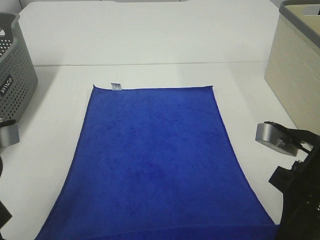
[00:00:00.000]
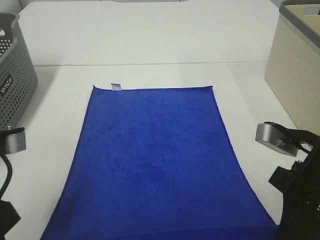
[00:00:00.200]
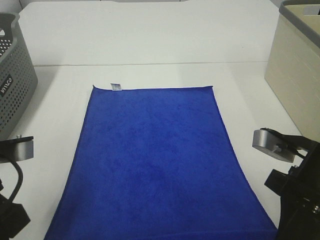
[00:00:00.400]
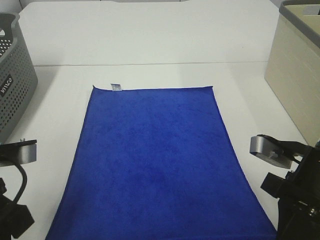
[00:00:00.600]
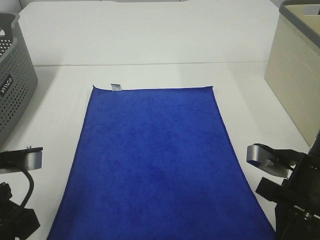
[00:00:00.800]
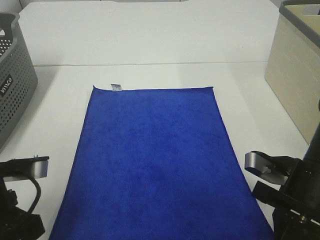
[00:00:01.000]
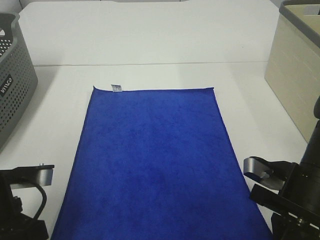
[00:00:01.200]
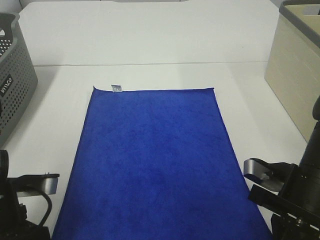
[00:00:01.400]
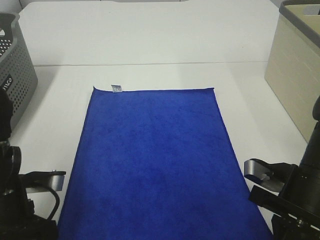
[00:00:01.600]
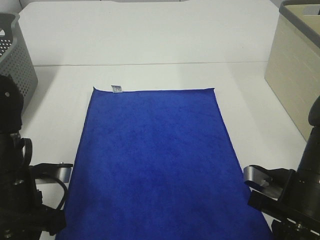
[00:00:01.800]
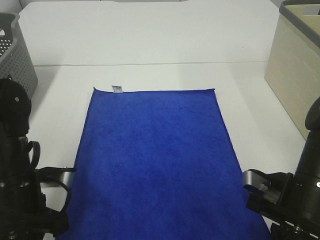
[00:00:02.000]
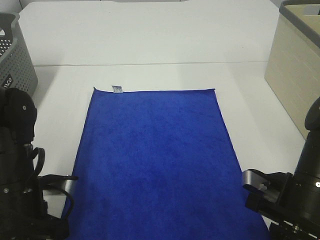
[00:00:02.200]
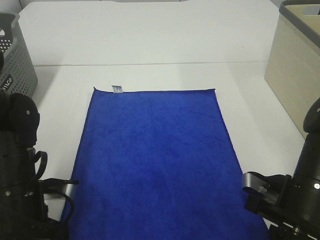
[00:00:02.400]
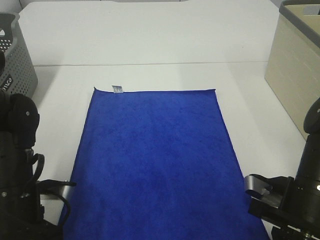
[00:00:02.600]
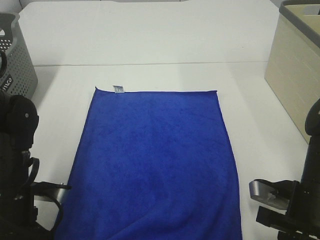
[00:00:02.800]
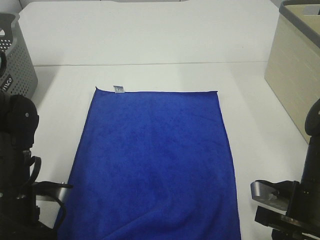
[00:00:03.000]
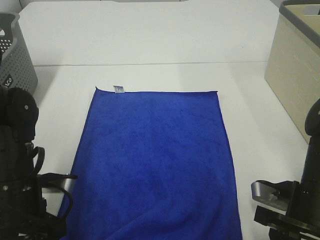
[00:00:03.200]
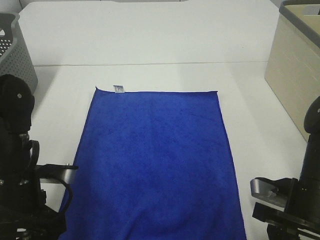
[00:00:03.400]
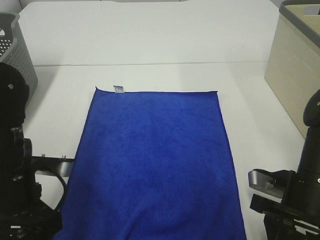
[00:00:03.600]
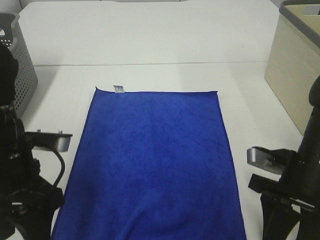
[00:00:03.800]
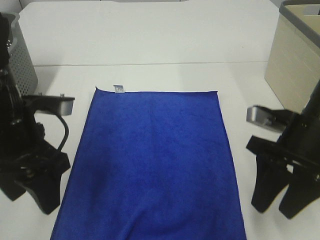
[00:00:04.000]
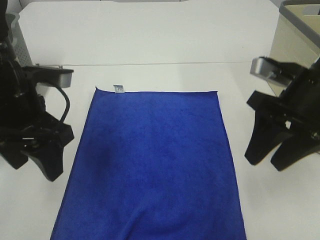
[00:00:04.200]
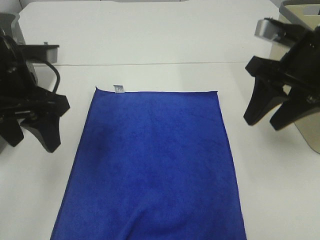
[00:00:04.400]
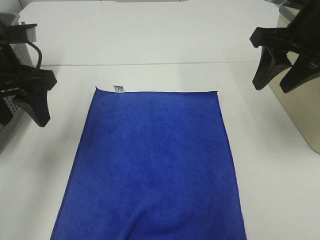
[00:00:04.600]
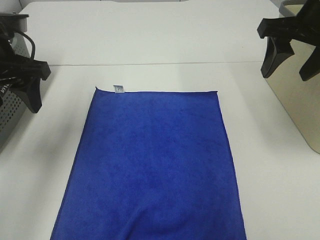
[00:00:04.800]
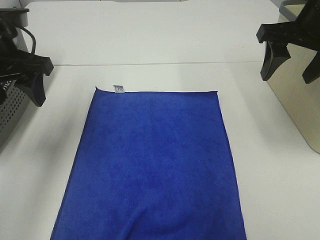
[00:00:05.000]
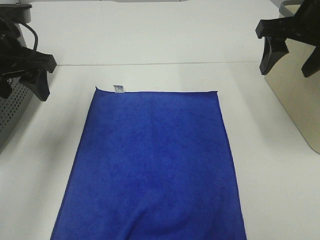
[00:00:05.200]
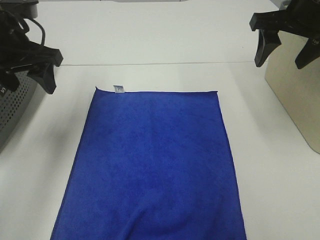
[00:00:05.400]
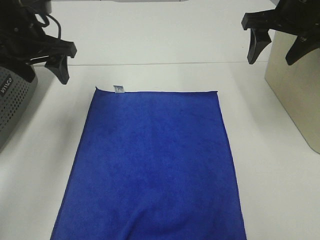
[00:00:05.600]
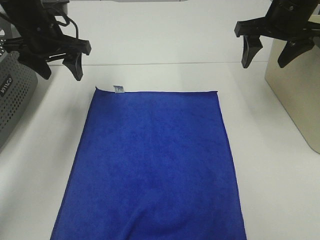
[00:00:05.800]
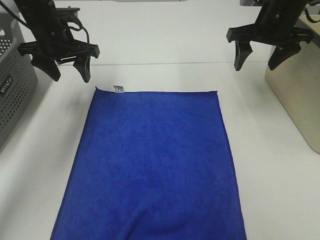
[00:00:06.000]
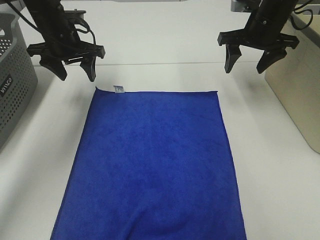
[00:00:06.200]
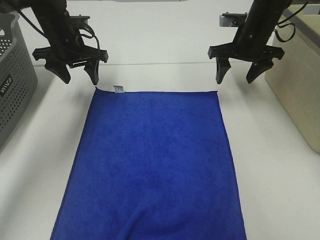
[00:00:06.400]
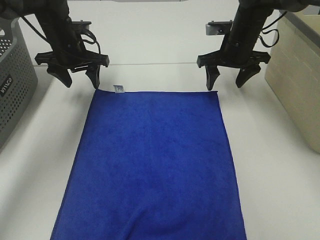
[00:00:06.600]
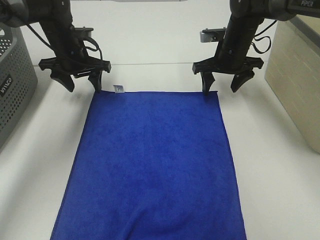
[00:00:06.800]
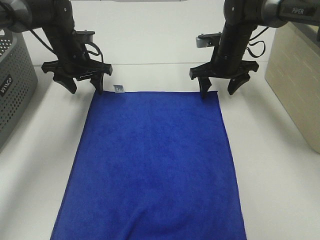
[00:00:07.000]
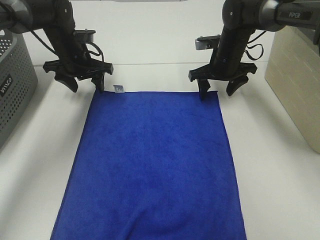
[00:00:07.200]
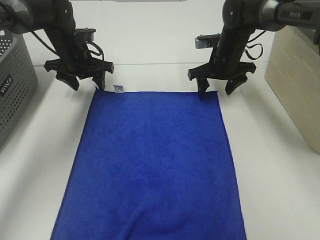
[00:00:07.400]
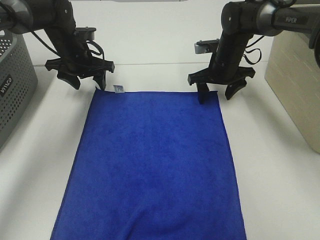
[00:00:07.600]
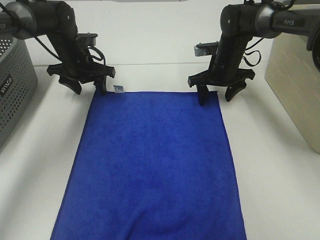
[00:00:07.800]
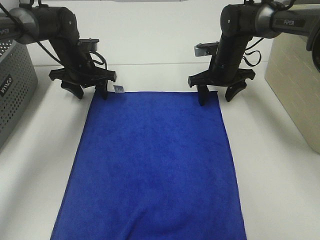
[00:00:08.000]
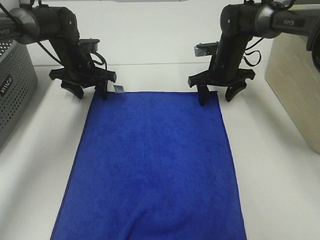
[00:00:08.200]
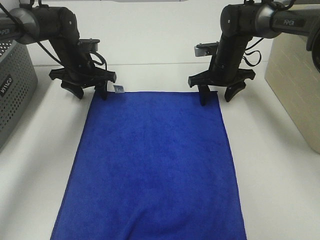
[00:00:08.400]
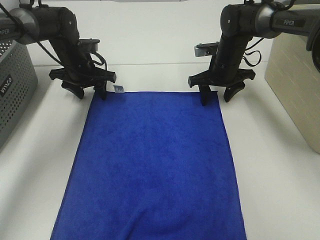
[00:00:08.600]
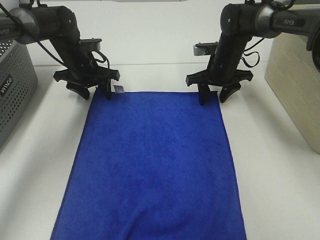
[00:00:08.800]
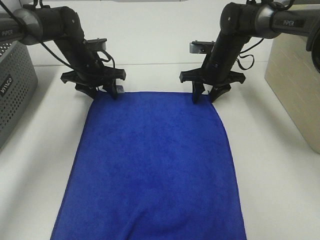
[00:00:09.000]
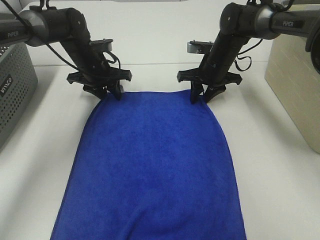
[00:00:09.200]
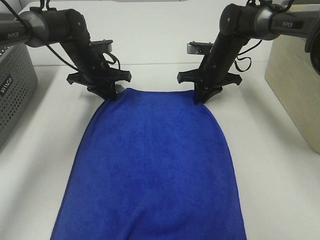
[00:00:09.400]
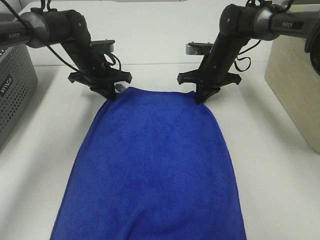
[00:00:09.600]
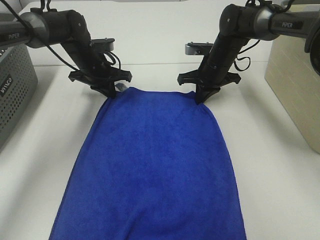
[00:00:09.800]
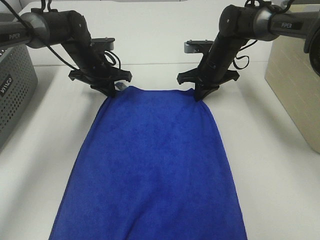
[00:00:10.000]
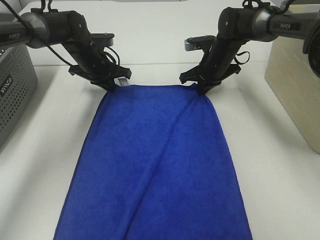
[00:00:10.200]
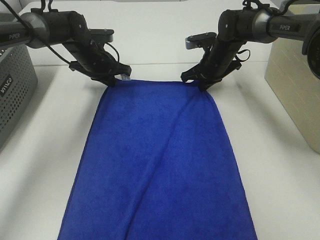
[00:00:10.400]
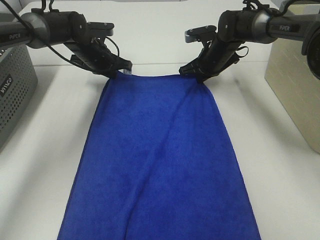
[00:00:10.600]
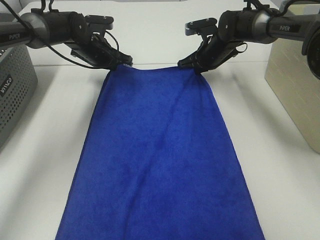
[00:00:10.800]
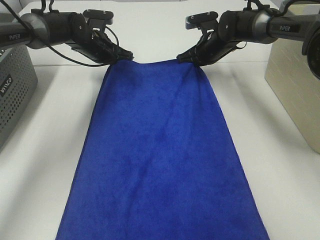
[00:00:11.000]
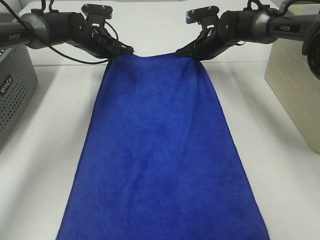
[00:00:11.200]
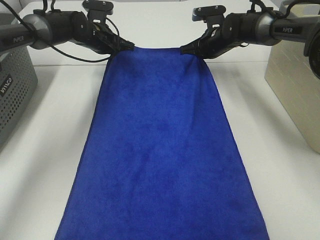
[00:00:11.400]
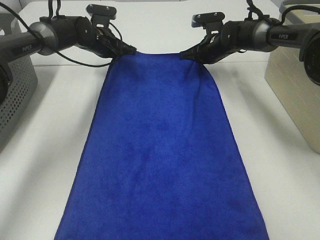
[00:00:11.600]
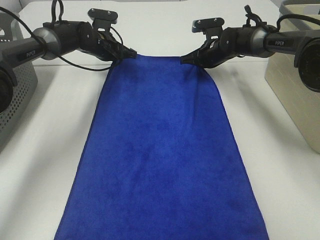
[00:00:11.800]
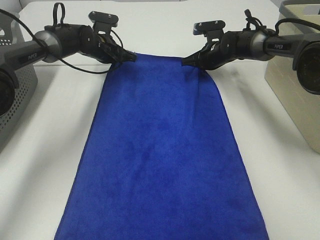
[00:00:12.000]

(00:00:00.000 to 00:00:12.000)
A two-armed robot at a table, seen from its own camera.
Task of the whole recording: Remove the towel and place it.
Step, 00:00:00.000 - 00:00:06.000: Left hand:adjust the blue towel.
Step, 00:00:00.000 - 00:00:06.000: Right hand:adjust the blue towel.
00:00:00.000 - 00:00:01.600: The left gripper moves downward, some 10 cm; the right gripper heads downward, covering approximately 5 cm.
00:00:01.600 - 00:00:03.000: The left gripper opens its fingers, while the right gripper opens up.
00:00:03.000 - 00:00:04.400: The grippers both shift upward and forward by approximately 20 cm.
00:00:04.400 - 00:00:06.000: The two grippers go roughly 20 cm forward.
00:00:06.000 - 00:00:07.600: The right gripper goes some 15 cm downward and to the left, while the left gripper moves downward, approximately 5 cm.
00:00:07.600 - 00:00:09.000: The grippers make only small movements.
00:00:09.000 - 00:00:10.400: The left gripper closes up; the right gripper closes.
00:00:10.400 - 00:00:12.000: The right gripper shifts by about 5 cm.

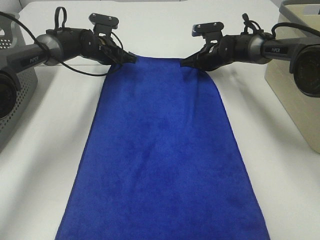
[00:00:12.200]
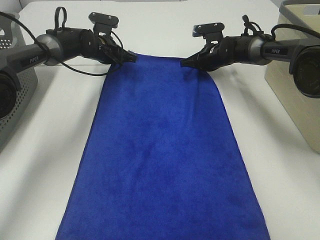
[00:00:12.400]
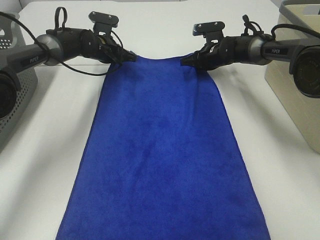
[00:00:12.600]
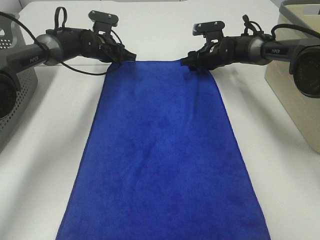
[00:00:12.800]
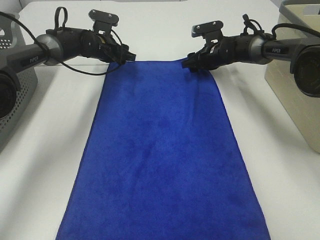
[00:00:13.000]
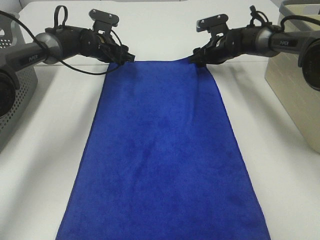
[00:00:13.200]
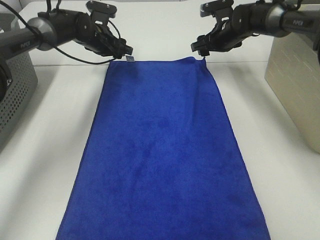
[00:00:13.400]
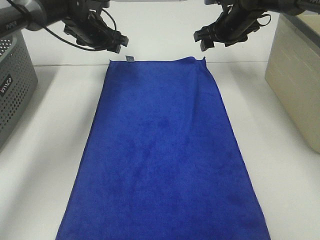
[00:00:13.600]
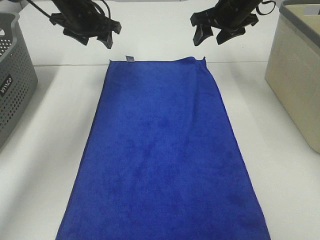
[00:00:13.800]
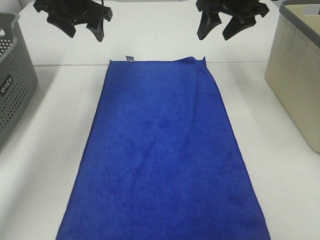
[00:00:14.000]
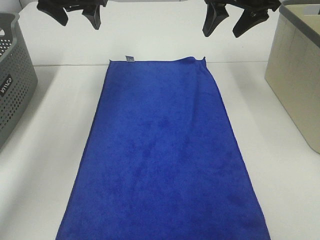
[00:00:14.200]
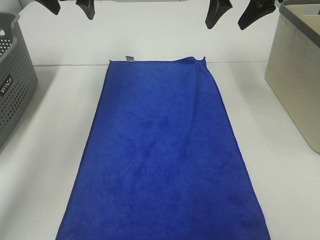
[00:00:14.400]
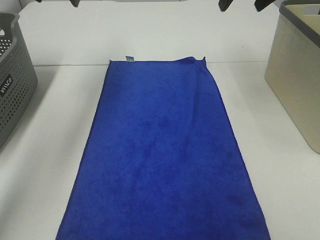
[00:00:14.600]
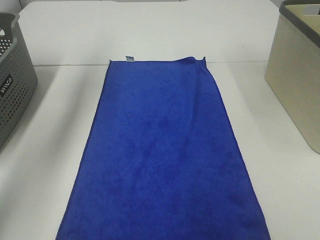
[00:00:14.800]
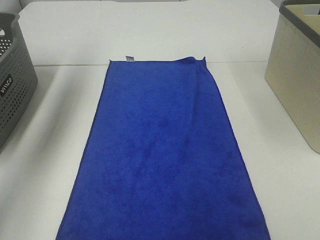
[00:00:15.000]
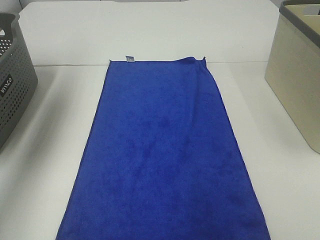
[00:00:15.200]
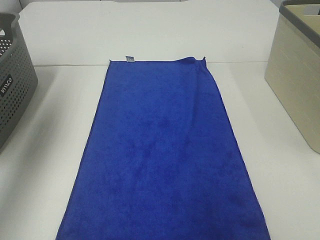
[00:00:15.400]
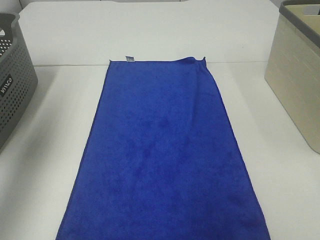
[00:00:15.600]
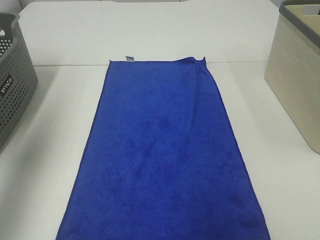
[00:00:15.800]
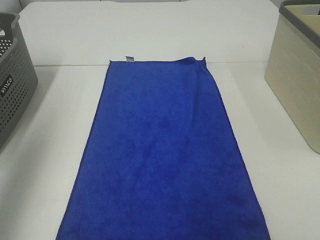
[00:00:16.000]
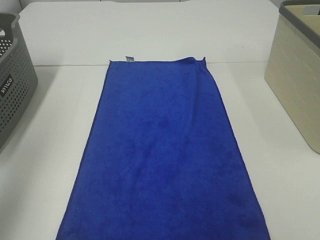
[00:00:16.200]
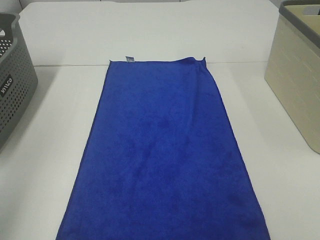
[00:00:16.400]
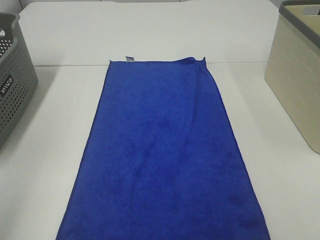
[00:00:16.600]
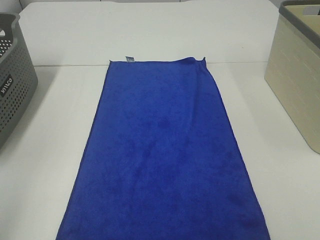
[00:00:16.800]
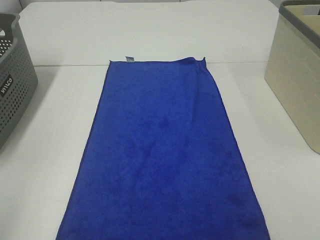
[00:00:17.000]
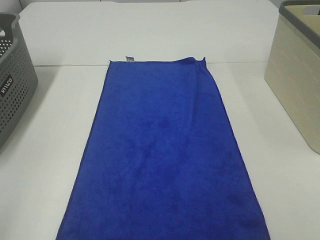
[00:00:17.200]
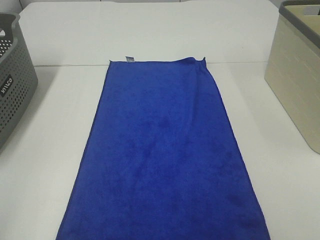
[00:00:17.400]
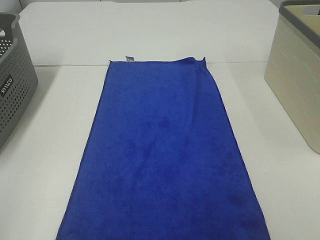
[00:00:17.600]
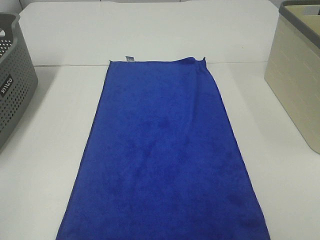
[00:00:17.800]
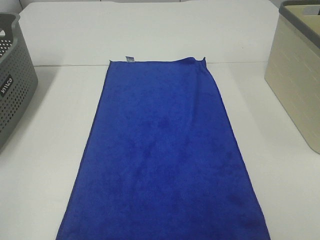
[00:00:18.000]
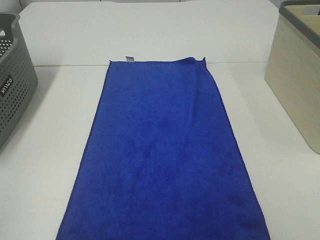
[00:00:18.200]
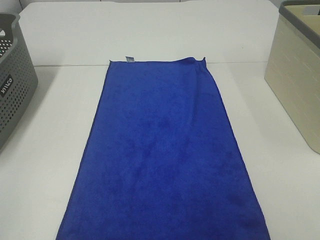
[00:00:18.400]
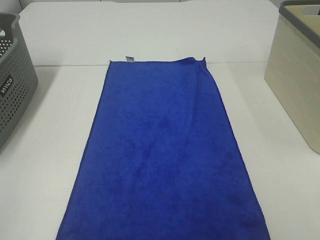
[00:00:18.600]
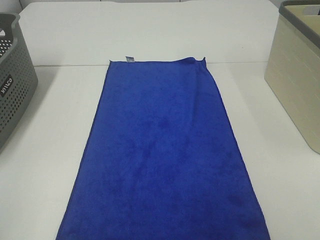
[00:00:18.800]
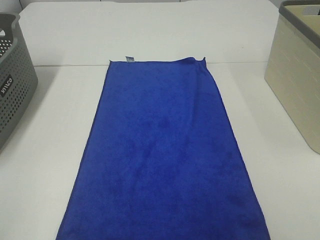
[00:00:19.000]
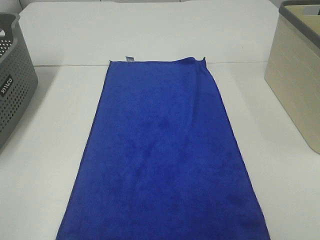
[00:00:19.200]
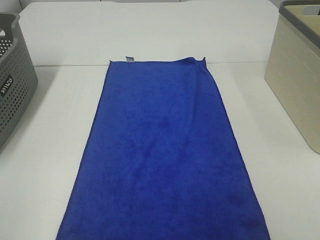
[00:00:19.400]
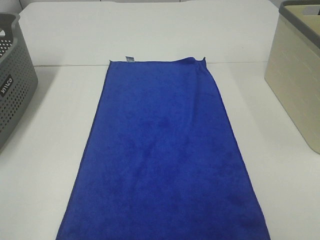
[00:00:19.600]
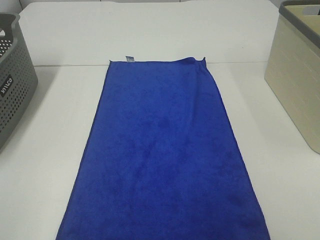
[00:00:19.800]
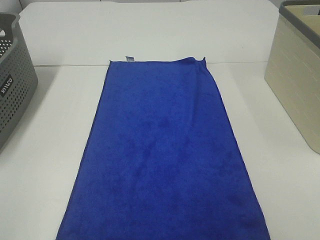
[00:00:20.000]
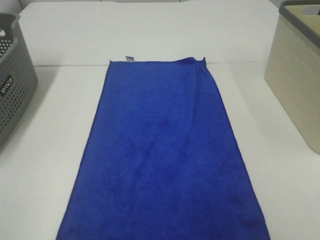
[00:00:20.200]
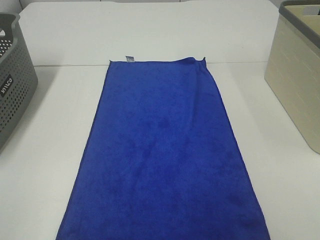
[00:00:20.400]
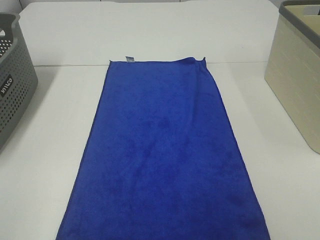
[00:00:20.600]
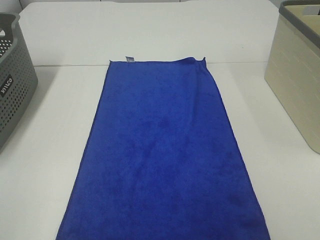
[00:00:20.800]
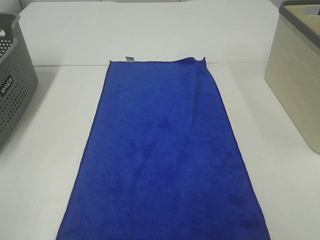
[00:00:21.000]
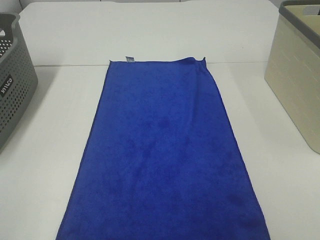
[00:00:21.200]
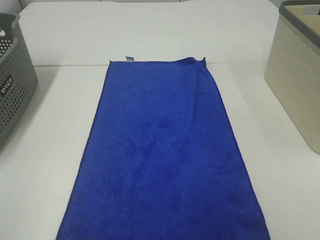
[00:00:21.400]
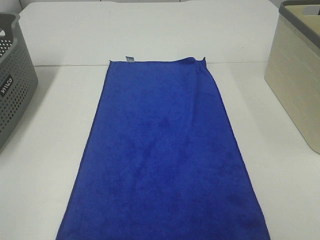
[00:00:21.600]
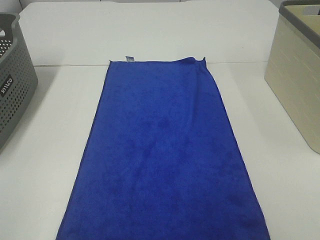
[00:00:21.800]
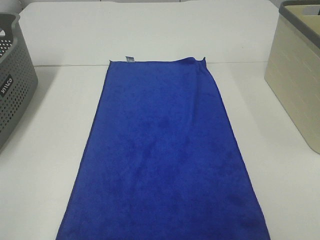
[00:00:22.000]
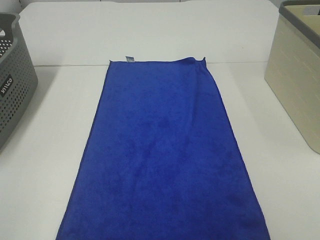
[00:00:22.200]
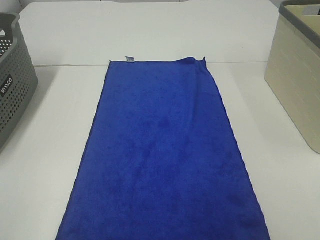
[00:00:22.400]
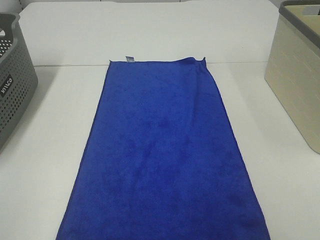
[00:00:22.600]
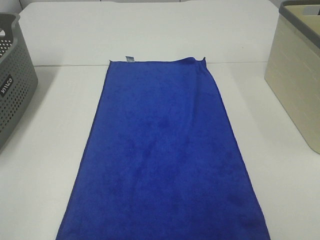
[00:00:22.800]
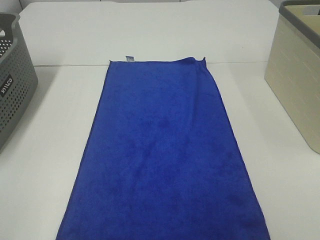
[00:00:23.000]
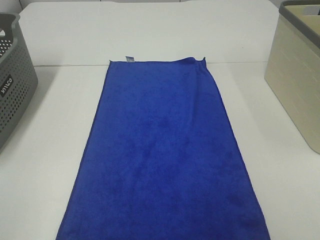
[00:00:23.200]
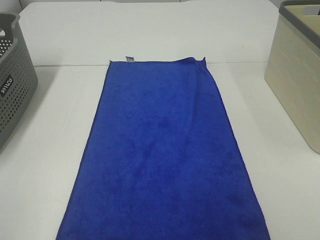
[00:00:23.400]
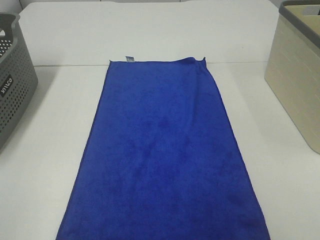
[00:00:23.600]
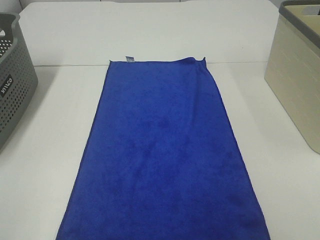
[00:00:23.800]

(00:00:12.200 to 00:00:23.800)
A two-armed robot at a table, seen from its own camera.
Task of the whole recording: Remove the towel and place it.
00:00:12.200 - 00:00:13.600: The grippers both shift upward by some 10 cm. The right gripper opens. Meanwhile the left gripper opens.
00:00:13.600 - 00:00:15.000: The left gripper shifts some 30 cm upward, to the left and backward. The right gripper heads upward and backward, covering approximately 30 cm.
00:00:15.000 - 00:00:16.600: The left gripper heads backward, covering roughly 35 cm.
00:00:16.600 - 00:00:18.000: The left gripper shifts approximately 15 cm downward and backward.
00:00:19.400 - 00:00:23.800: Both grippers stay put.
